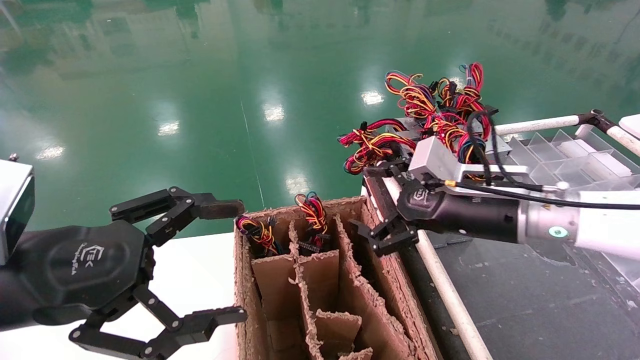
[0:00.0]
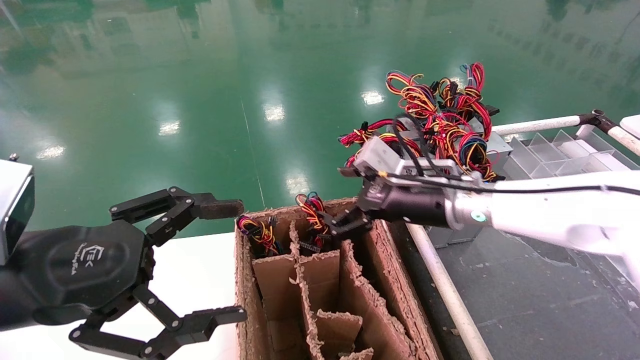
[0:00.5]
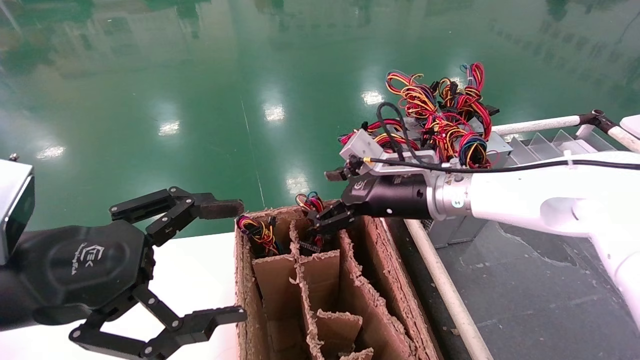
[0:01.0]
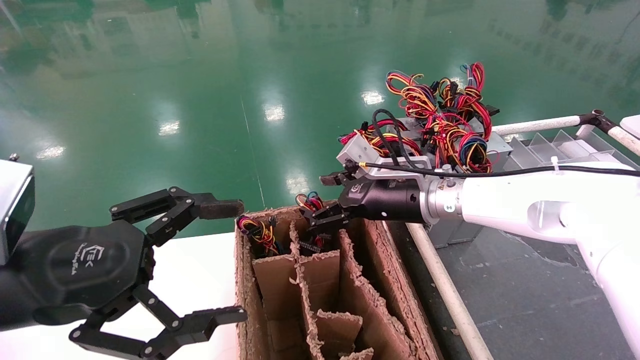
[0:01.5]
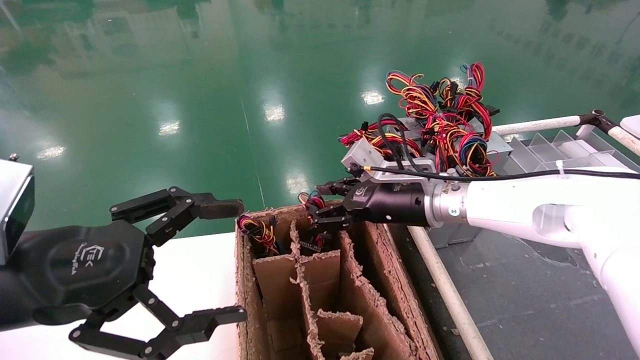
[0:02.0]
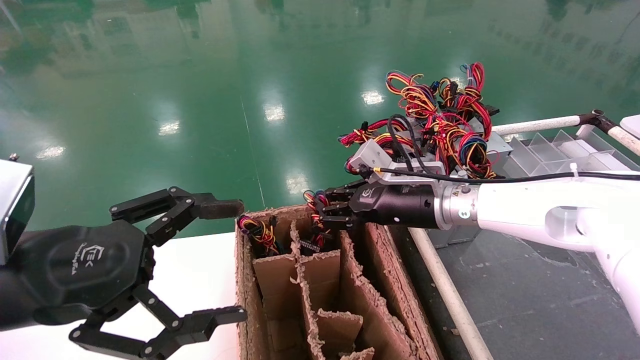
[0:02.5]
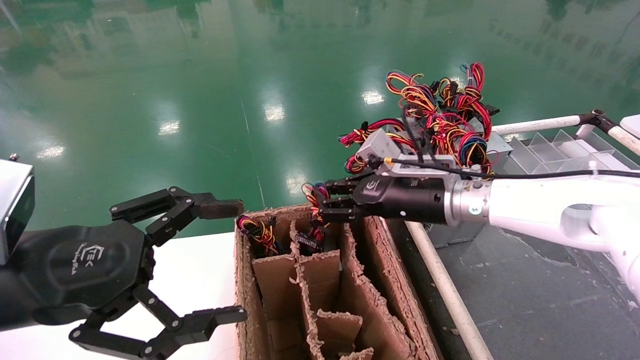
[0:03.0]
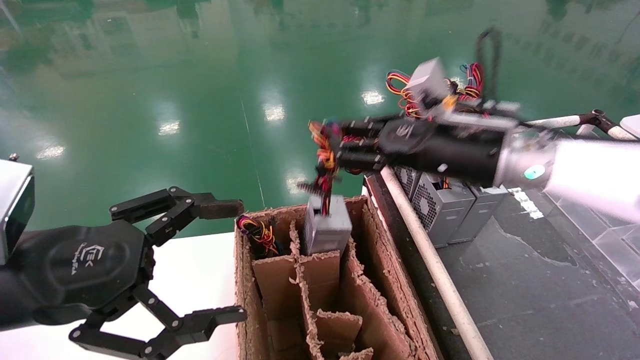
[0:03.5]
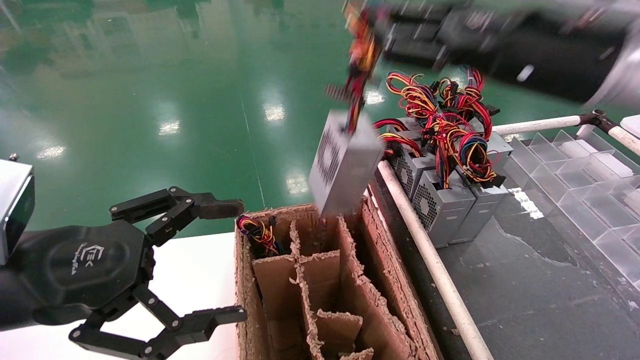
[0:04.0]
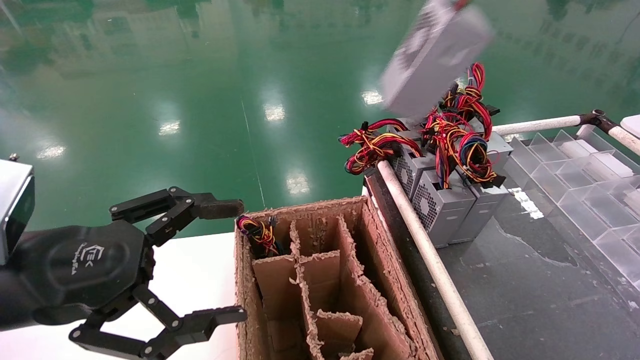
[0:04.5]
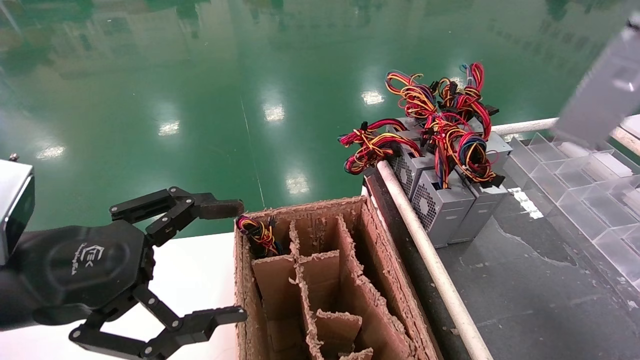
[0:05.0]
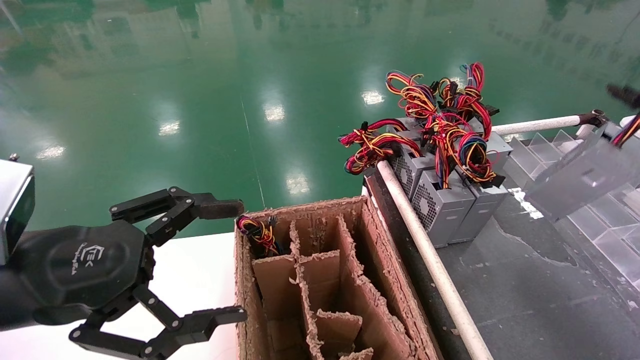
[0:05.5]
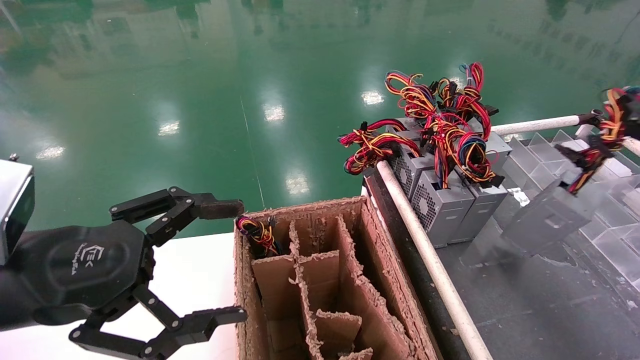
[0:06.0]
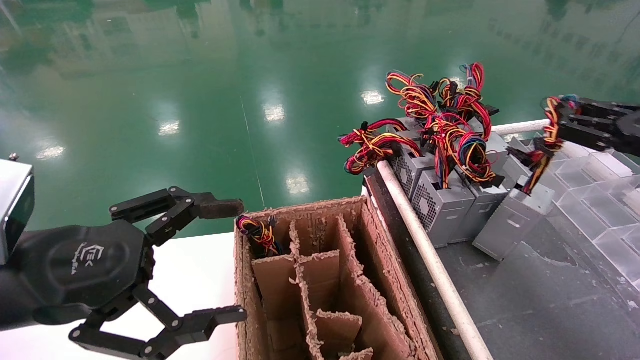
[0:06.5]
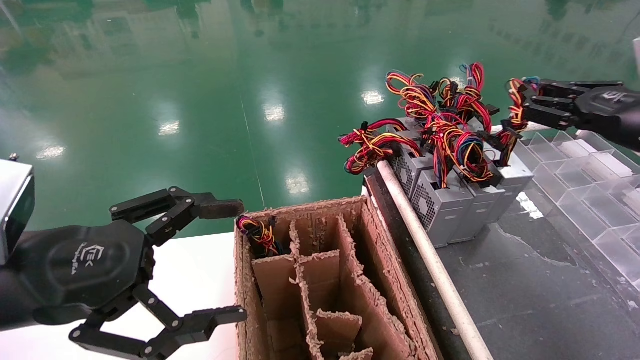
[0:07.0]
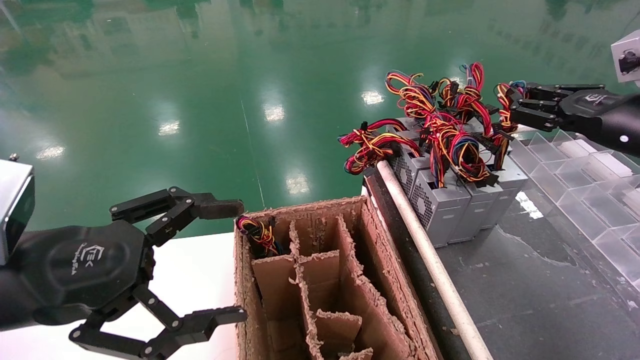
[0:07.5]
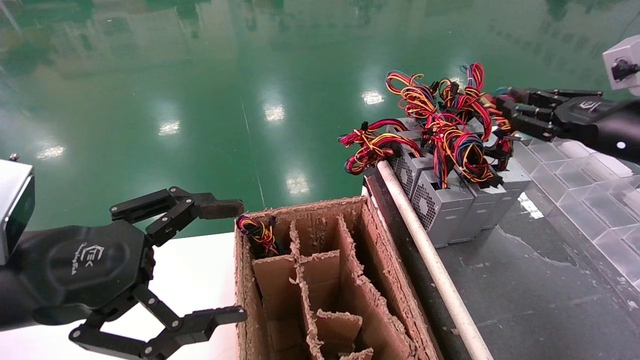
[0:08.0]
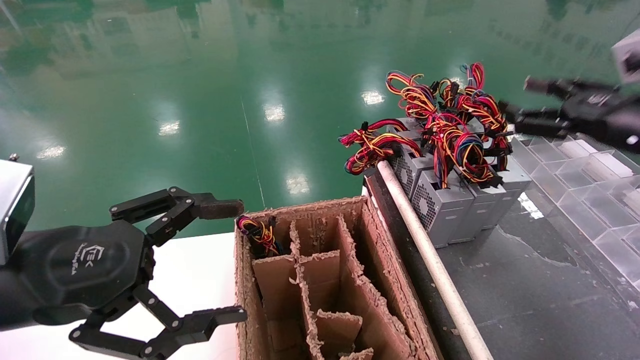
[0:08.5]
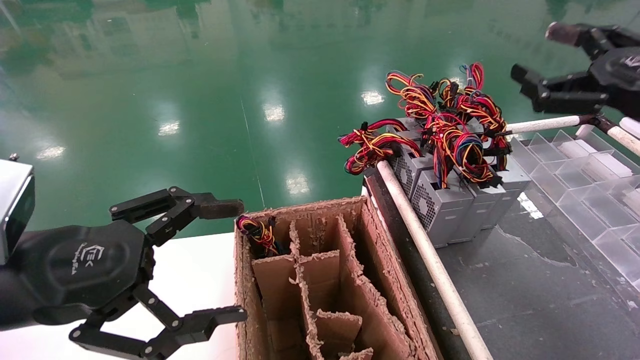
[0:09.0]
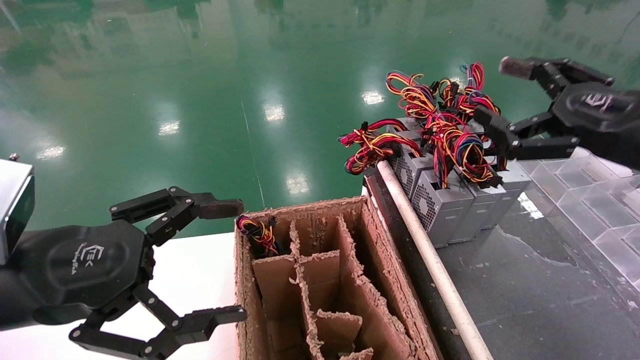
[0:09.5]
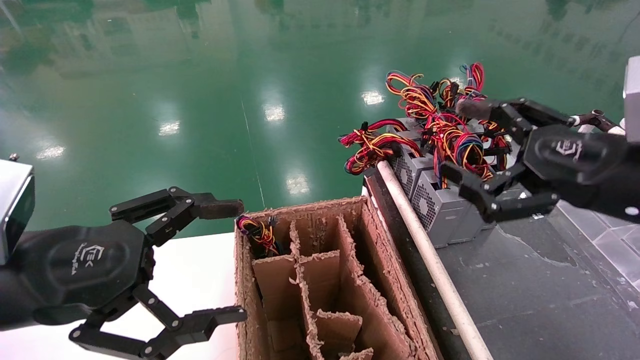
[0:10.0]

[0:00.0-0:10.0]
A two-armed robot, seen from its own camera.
Step, 0:00.0 to 0:03.5: Grab and lift the power supply from the large box.
Step, 0:04.0 to 0:07.5: Place the power supply on the operating table.
0:00.0 to 0:02.0: The right gripper travels forward and to the left by about 10 cm, and closes.
0:02.0 to 0:04.0: The right gripper is displaced upward, backward and to the right by roughly 25 cm, and closes its fingers.
0:04.0 to 0:06.0: The right gripper goes some 25 cm to the right and downward.
0:06.0 to 0:08.0: The right gripper travels forward and to the left by roughly 10 cm.
0:08.0 to 0:10.0: The right gripper moves backward and to the left, roughly 15 cm, and opens its fingers.
